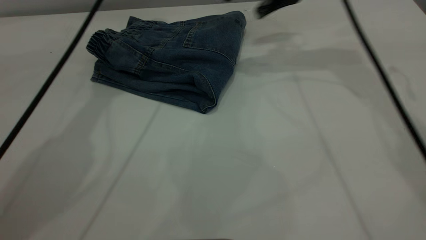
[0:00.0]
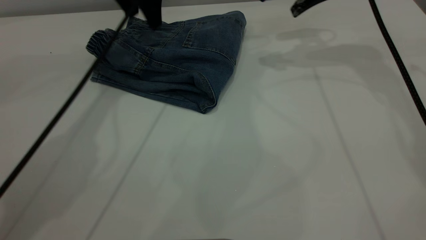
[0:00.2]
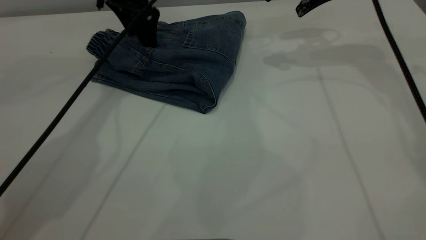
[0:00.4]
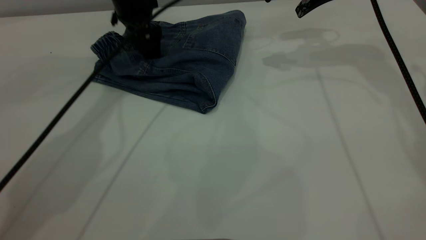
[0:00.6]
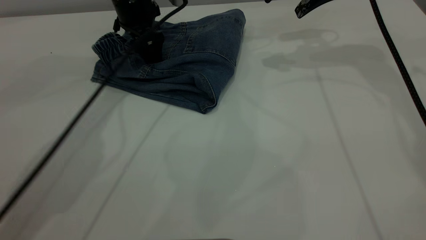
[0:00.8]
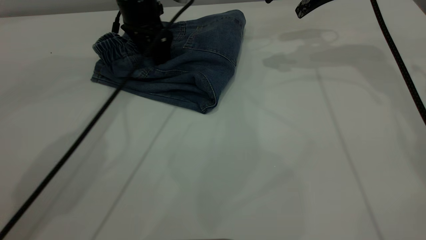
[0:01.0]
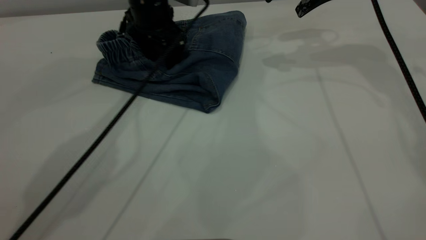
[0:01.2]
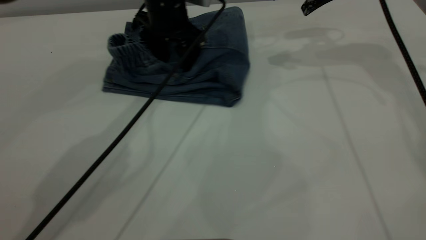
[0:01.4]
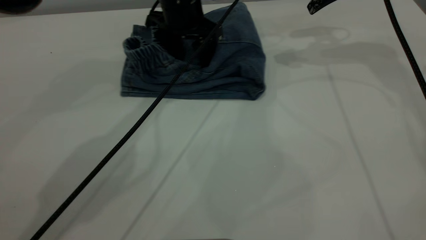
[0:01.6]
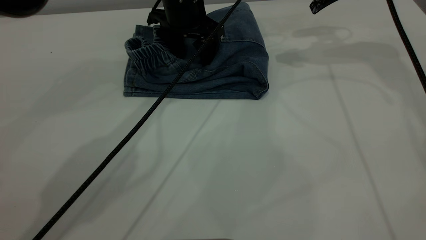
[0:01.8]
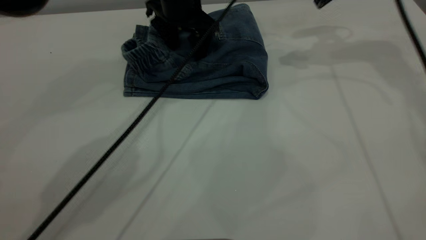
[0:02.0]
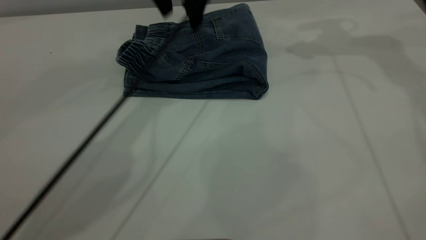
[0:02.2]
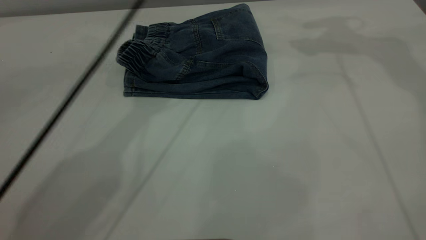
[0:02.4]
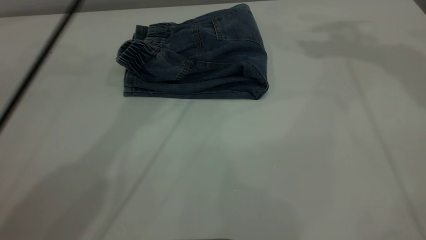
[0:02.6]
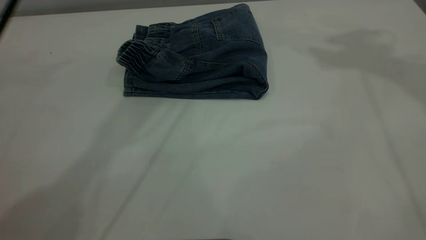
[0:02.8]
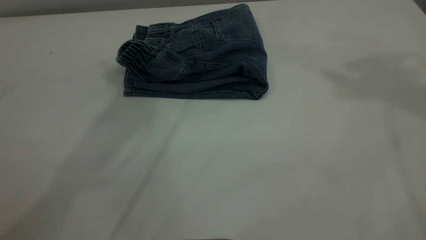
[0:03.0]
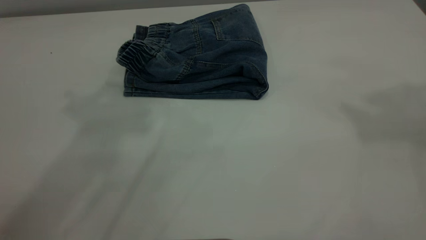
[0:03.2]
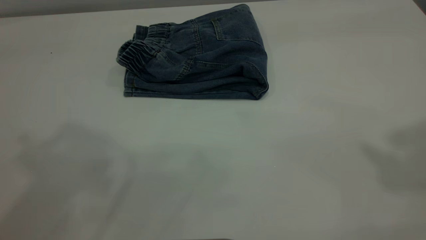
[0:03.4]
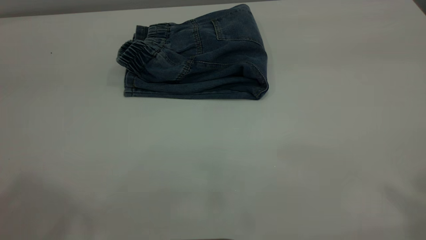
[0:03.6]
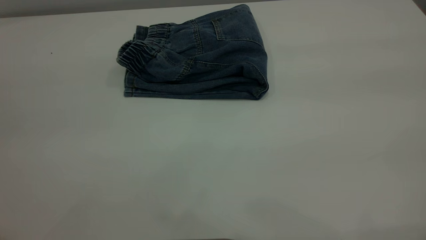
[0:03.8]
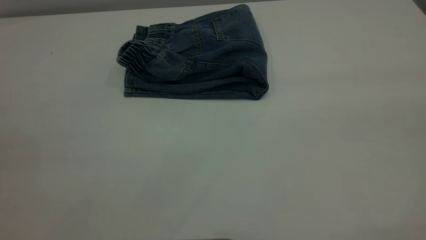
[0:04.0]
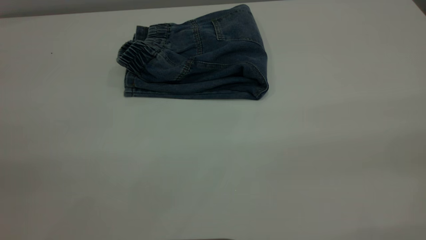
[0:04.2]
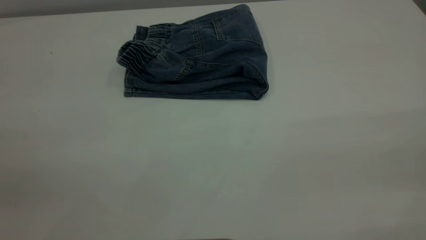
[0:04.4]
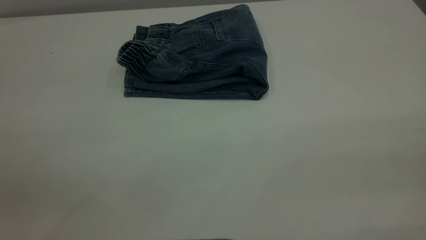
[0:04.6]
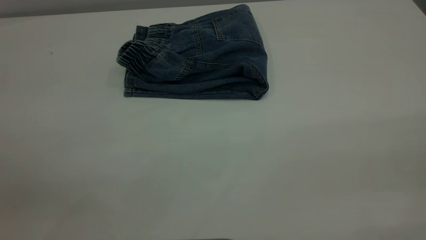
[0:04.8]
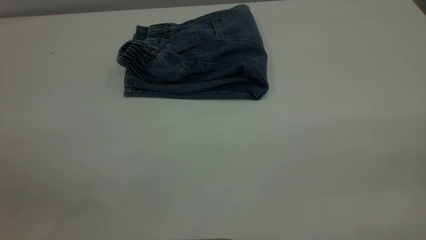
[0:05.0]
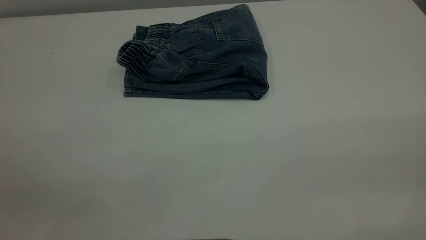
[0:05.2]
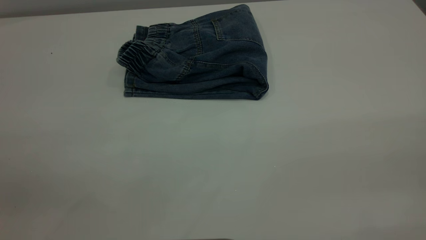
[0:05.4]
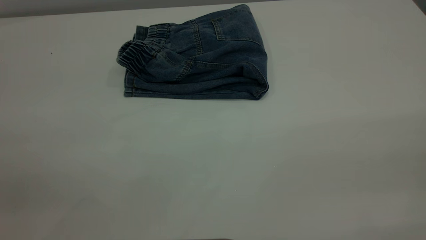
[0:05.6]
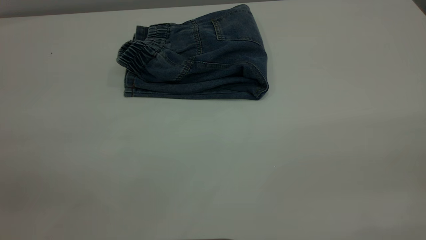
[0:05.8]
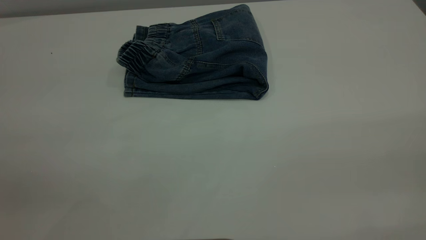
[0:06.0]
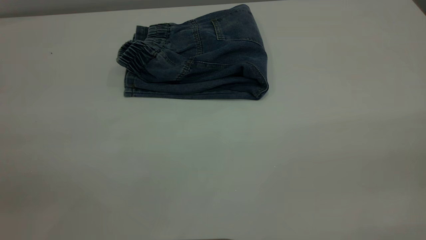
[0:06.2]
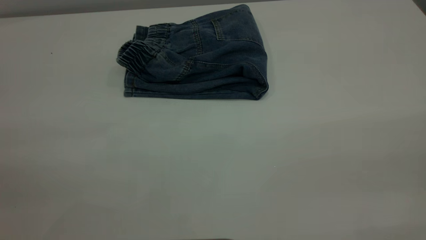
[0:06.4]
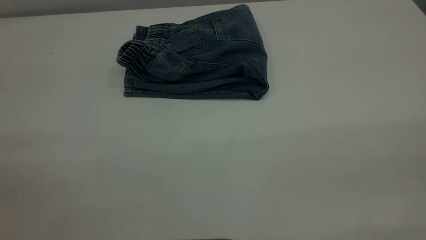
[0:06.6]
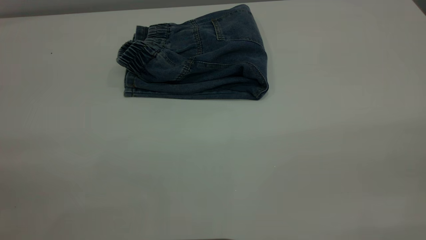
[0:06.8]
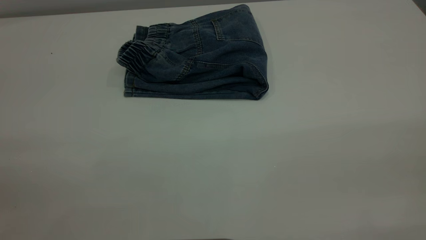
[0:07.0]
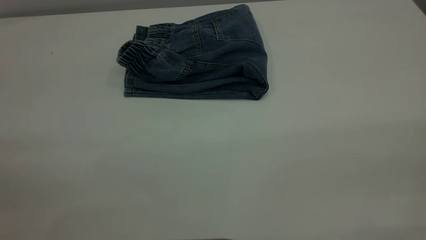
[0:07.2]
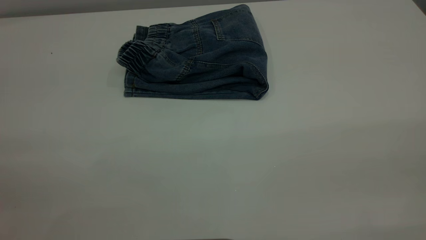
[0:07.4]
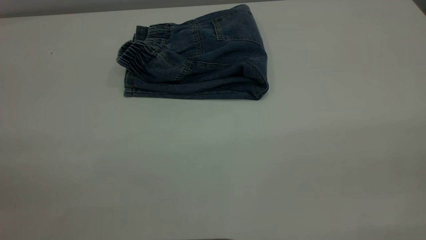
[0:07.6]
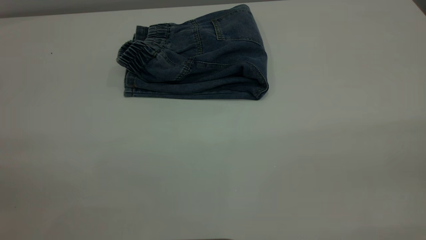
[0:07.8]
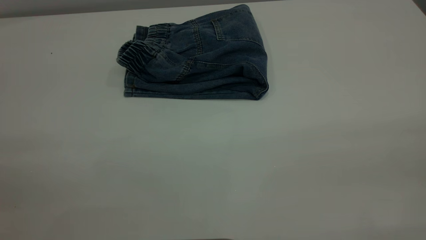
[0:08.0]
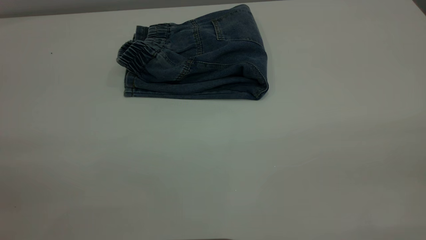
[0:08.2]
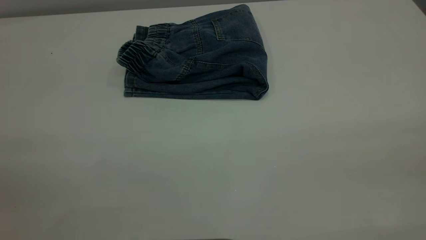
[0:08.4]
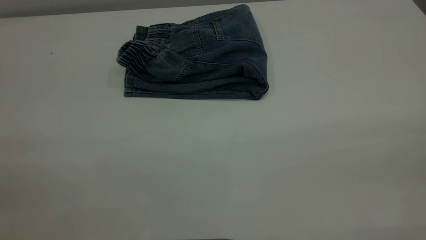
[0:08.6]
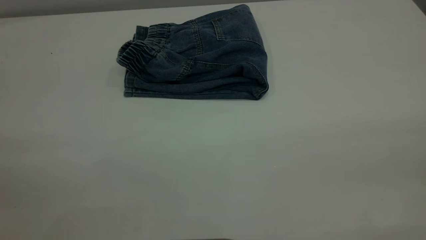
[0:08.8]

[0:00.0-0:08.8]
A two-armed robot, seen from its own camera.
0:00.0 to 0:01.4: The right gripper travels to the right by some 5 cm; the left gripper heads downward and to the right, covering about 15 cm.
0:01.4 to 0:03.0: The right gripper goes approximately 35 cm upward and backward; the left gripper travels upward by approximately 35 cm.

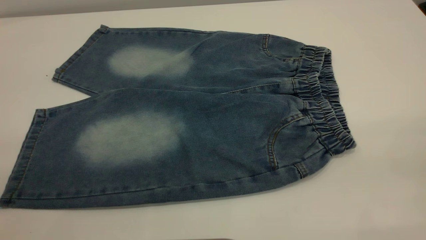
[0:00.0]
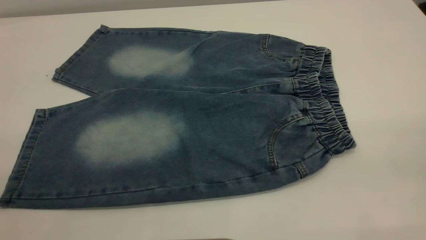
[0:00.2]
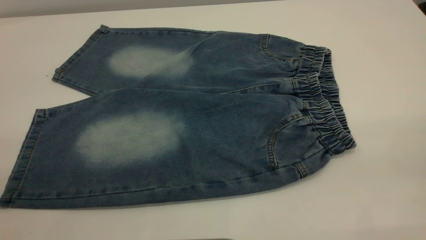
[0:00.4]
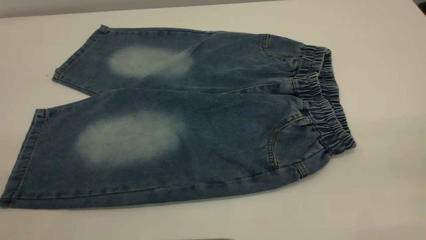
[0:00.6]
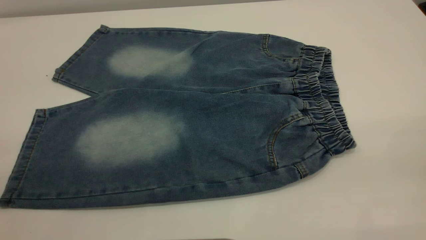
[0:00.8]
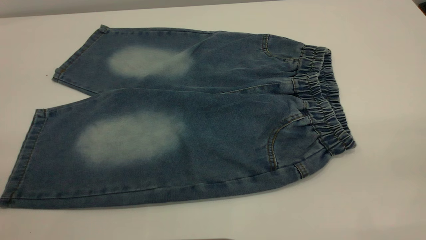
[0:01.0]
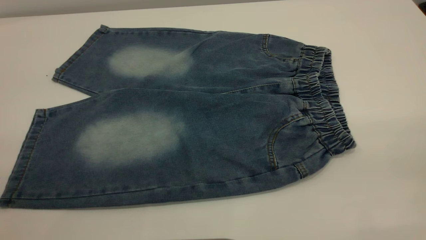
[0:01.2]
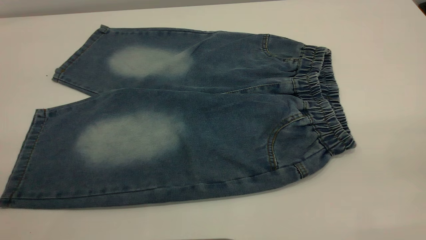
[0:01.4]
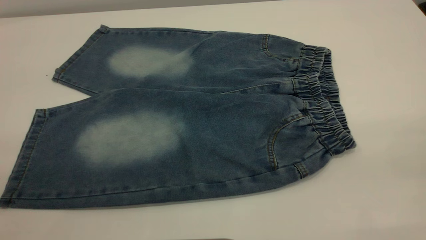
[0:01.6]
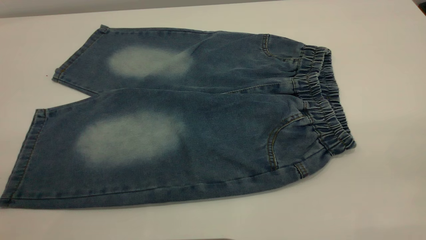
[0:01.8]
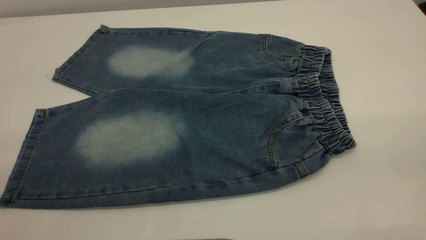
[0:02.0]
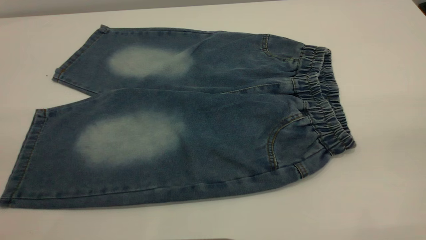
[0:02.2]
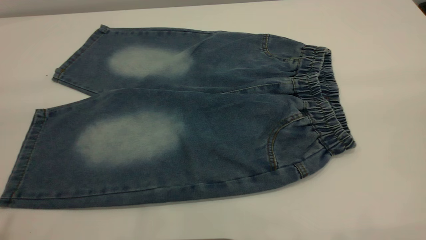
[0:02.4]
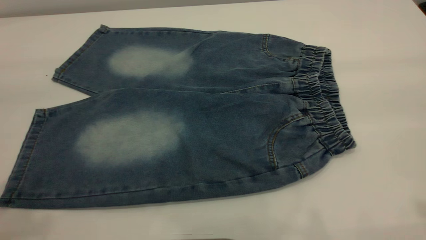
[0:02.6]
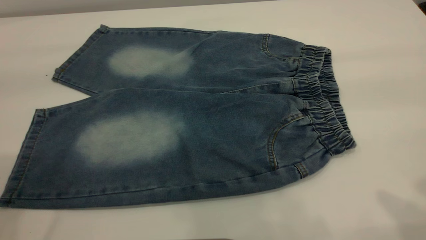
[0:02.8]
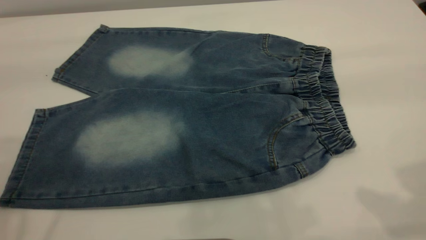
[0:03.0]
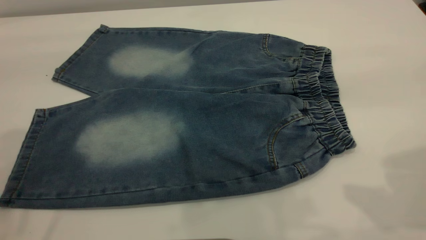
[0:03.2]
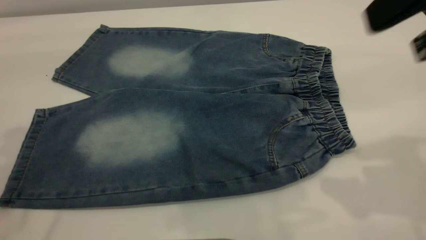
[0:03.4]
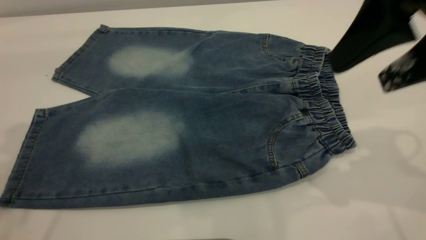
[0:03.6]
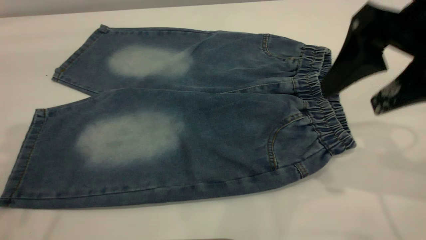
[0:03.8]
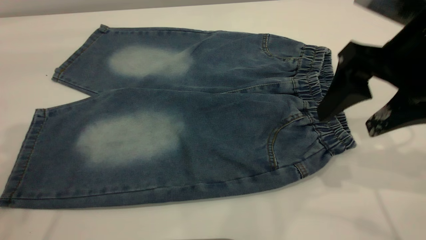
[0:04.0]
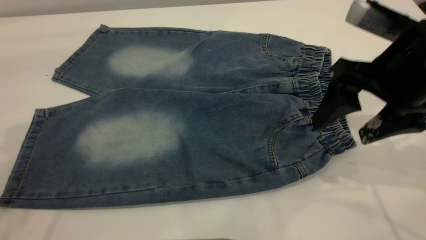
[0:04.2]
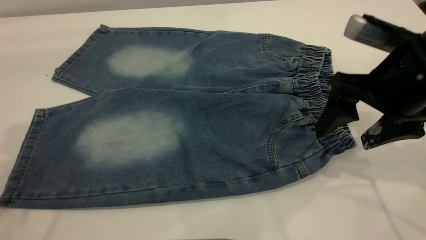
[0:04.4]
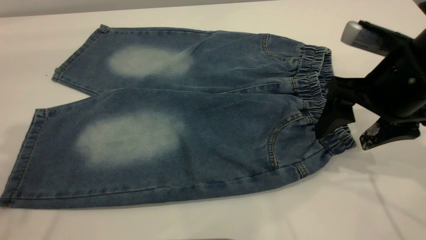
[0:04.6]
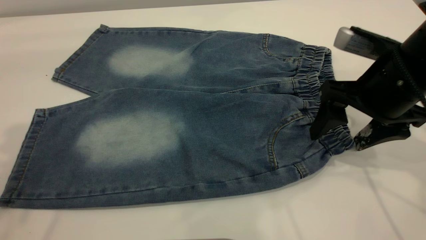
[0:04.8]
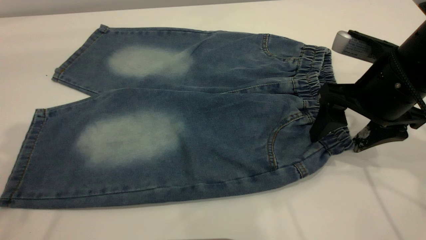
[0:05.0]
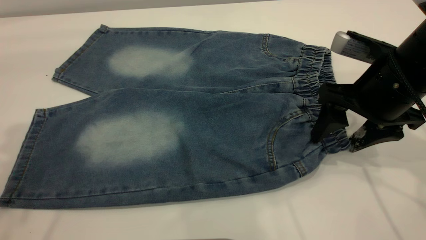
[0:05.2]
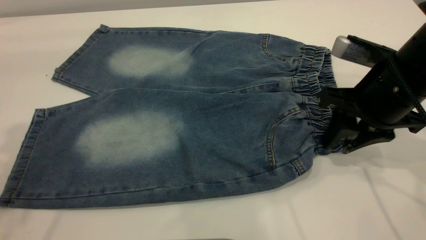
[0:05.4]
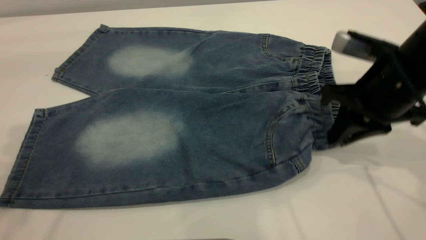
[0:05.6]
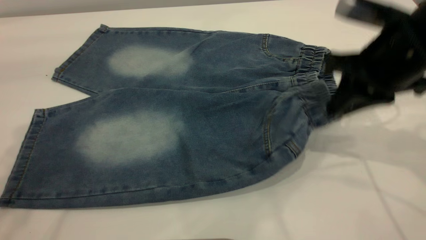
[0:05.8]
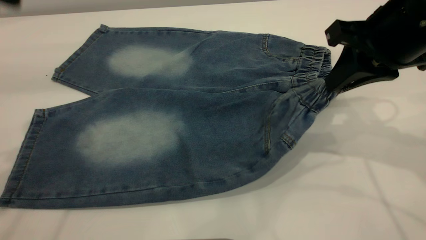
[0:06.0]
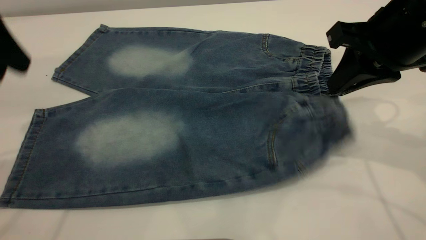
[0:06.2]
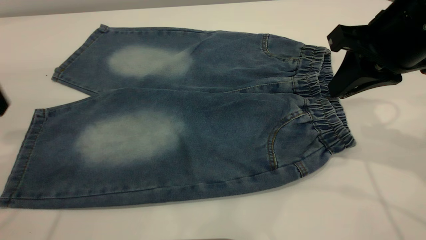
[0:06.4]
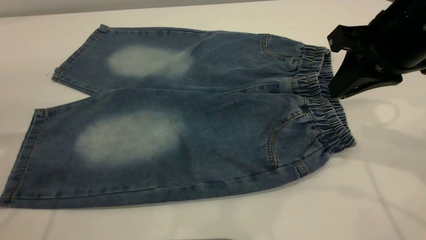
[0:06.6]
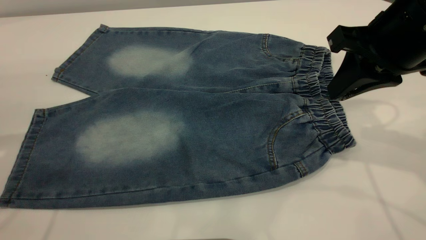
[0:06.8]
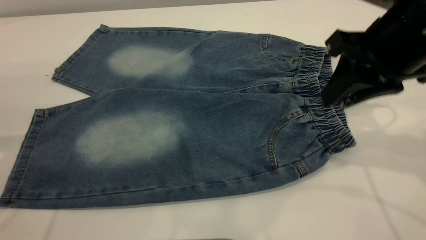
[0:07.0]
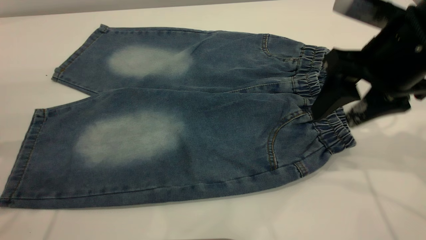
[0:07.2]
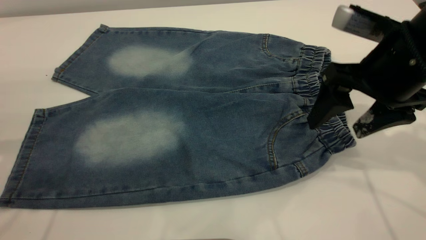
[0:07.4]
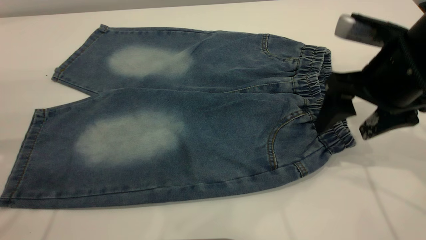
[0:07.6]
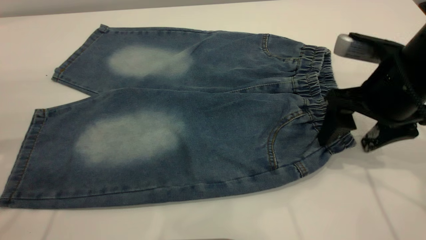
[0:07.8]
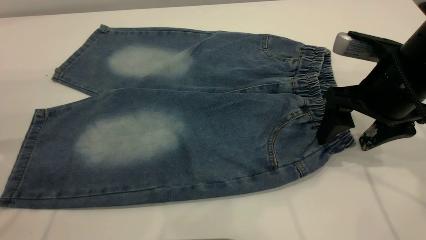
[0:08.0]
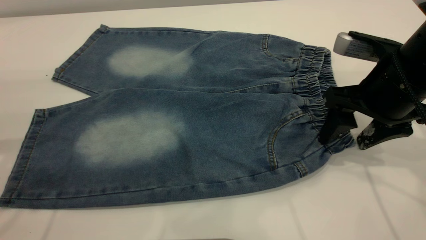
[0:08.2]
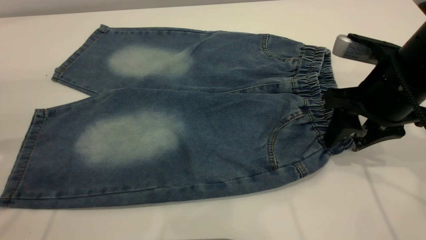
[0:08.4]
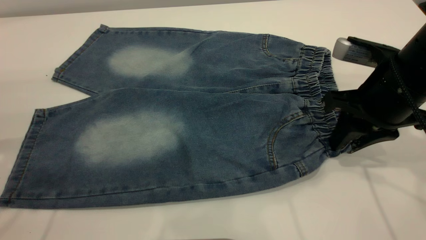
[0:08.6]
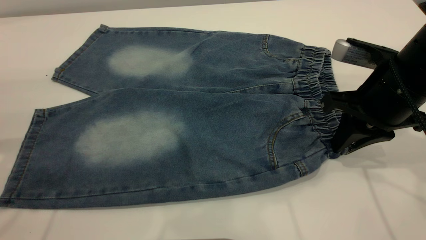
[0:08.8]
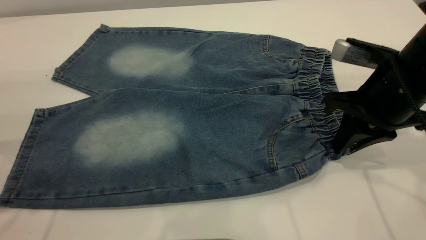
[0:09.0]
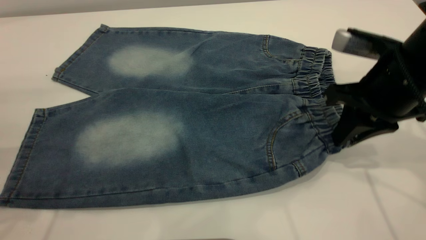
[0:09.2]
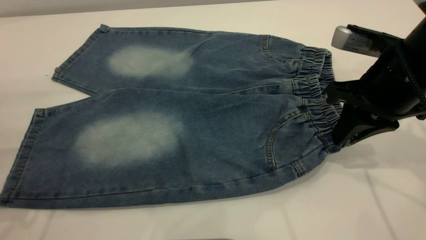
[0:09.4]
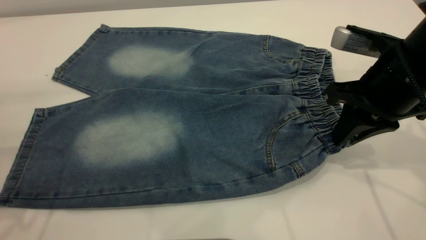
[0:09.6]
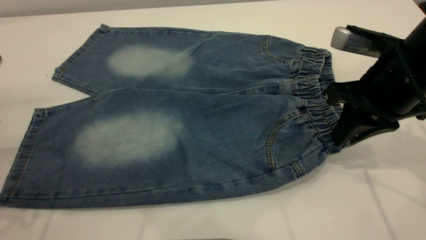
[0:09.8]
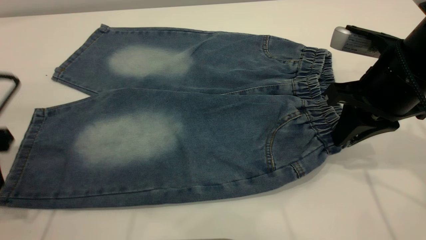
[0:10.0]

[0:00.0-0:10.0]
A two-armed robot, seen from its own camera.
0:00.0 to 0:01.4: The two grippers keep their place.
0:02.8 to 0:04.2: The right gripper is displaced downward and forward by approximately 20 cm.
0:04.2 to 0:05.8: The right gripper closes up.
0:05.8 to 0:07.2: The right gripper opens up; the left gripper is displaced downward by roughly 10 cm.
0:07.2 to 0:08.6: The right gripper moves downward, roughly 5 cm, and closes.
0:08.6 to 0:10.0: The left gripper travels downward by some 10 cm.
